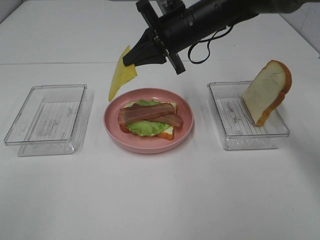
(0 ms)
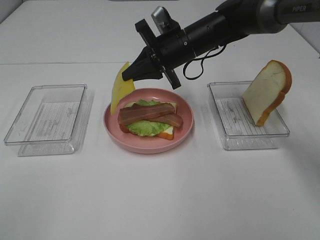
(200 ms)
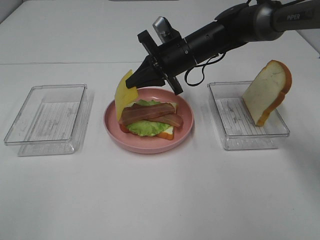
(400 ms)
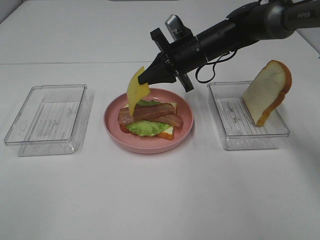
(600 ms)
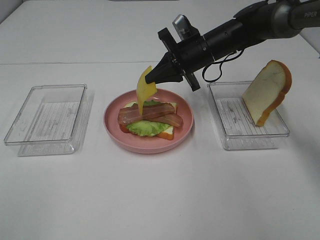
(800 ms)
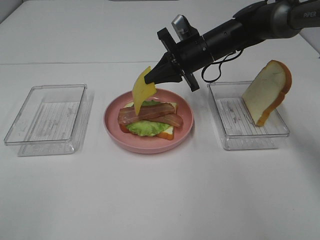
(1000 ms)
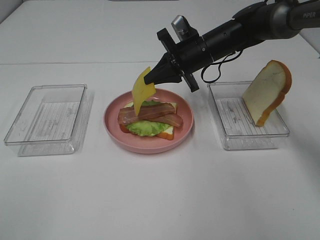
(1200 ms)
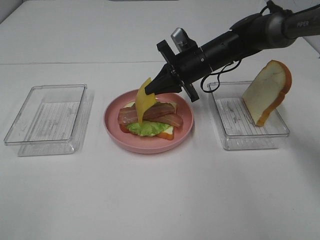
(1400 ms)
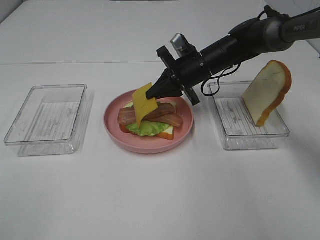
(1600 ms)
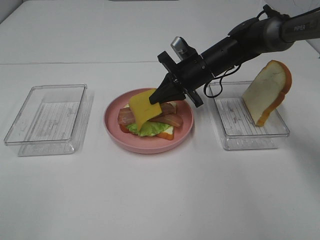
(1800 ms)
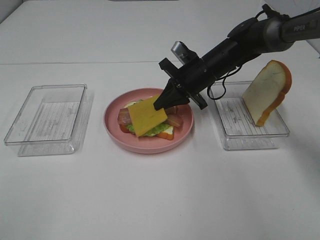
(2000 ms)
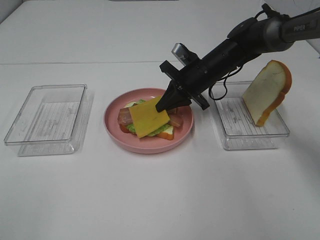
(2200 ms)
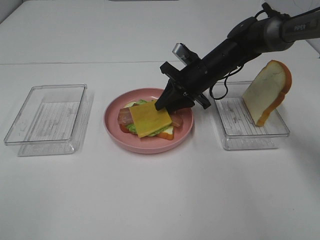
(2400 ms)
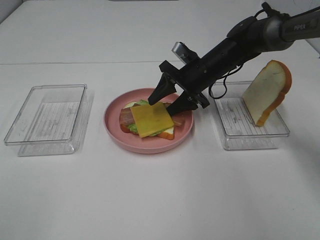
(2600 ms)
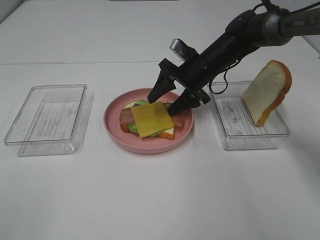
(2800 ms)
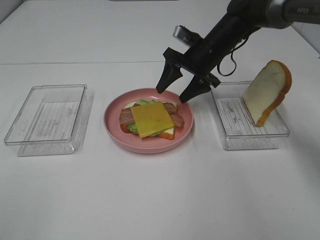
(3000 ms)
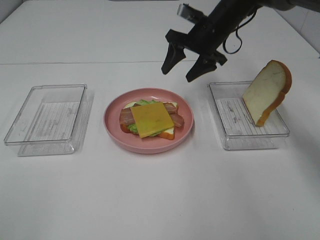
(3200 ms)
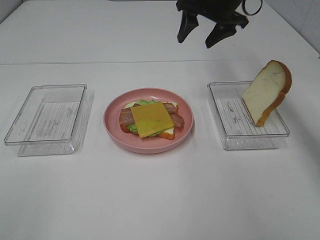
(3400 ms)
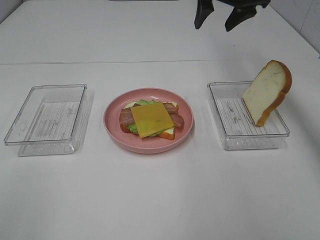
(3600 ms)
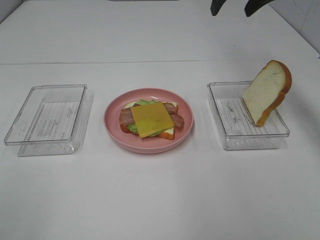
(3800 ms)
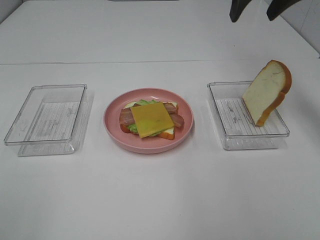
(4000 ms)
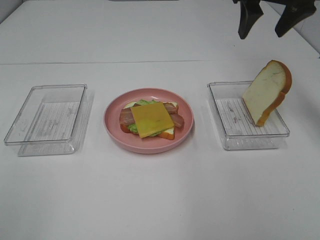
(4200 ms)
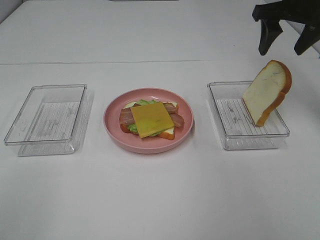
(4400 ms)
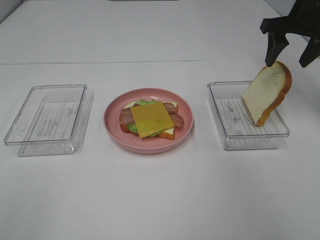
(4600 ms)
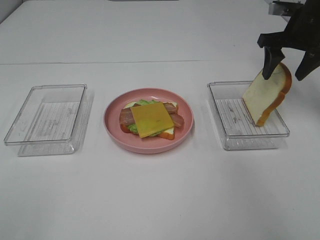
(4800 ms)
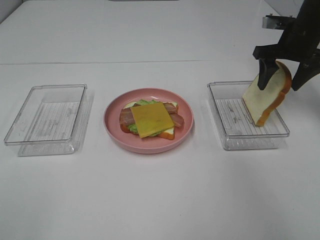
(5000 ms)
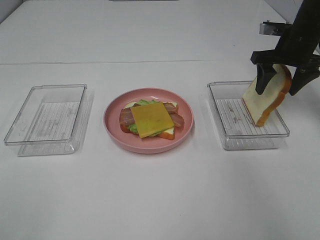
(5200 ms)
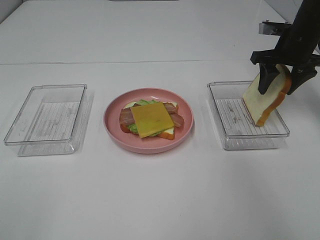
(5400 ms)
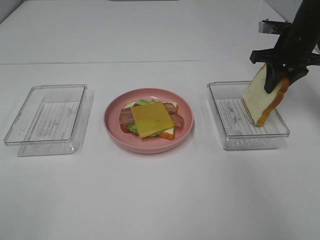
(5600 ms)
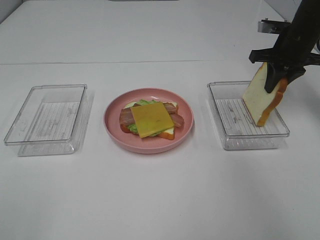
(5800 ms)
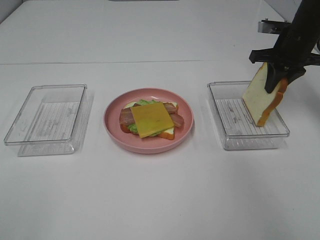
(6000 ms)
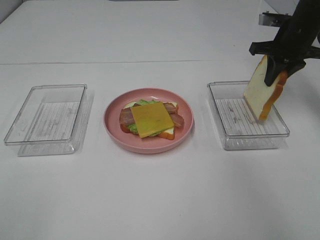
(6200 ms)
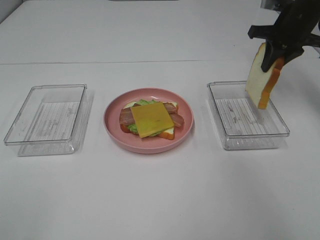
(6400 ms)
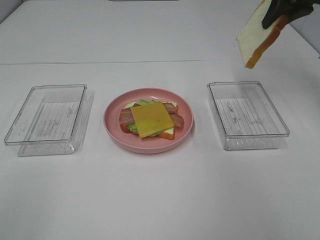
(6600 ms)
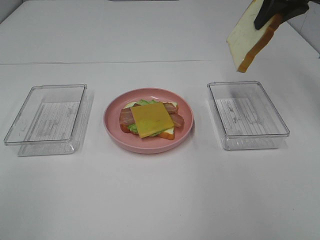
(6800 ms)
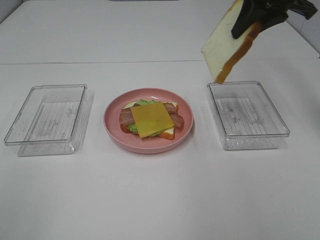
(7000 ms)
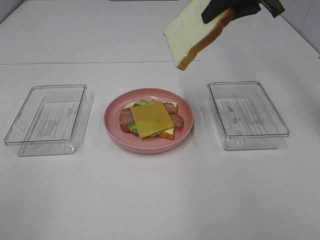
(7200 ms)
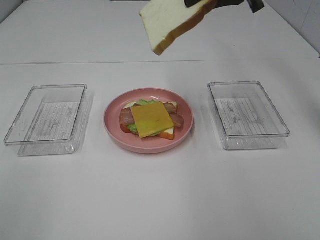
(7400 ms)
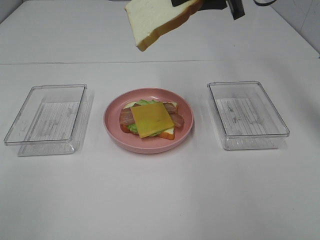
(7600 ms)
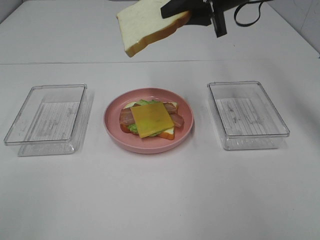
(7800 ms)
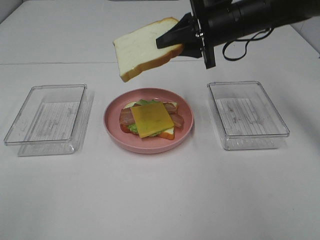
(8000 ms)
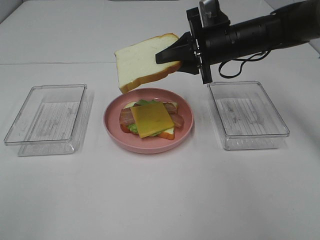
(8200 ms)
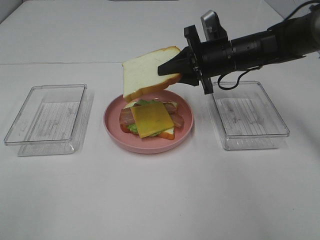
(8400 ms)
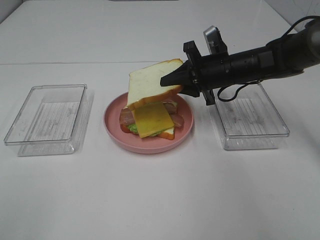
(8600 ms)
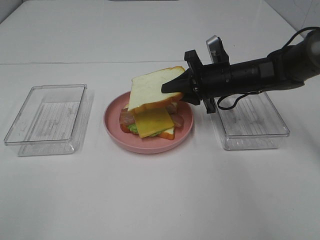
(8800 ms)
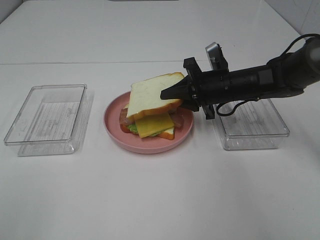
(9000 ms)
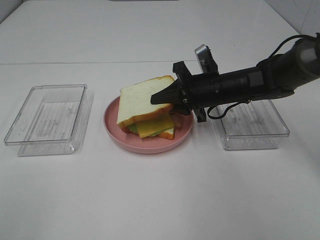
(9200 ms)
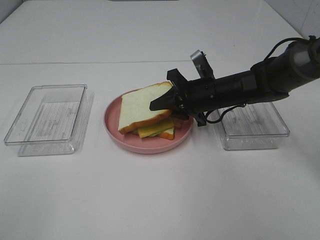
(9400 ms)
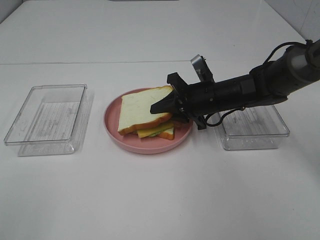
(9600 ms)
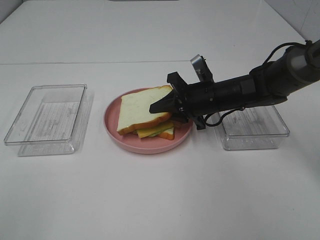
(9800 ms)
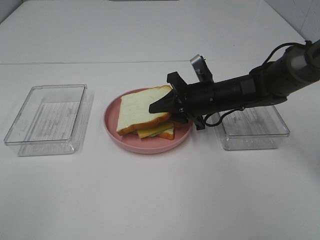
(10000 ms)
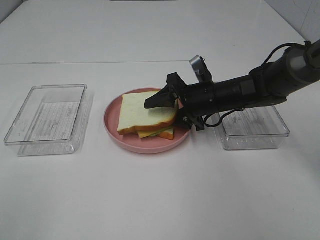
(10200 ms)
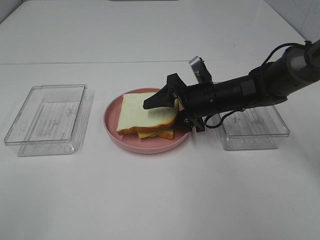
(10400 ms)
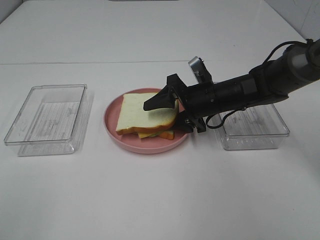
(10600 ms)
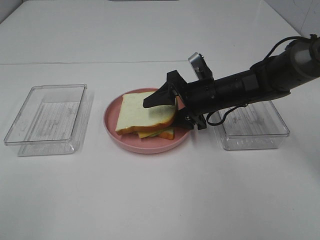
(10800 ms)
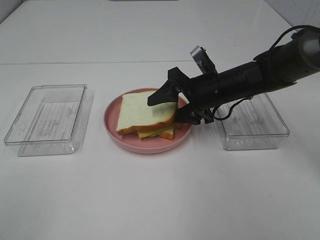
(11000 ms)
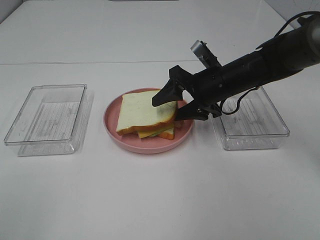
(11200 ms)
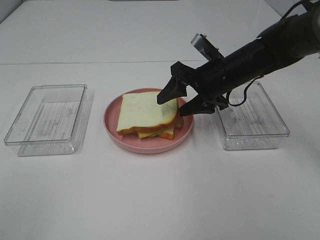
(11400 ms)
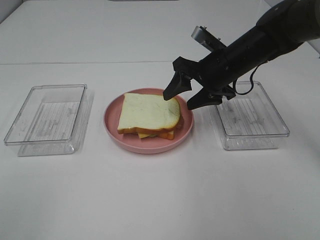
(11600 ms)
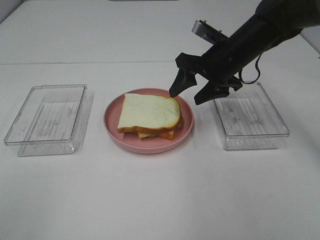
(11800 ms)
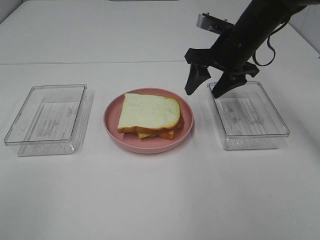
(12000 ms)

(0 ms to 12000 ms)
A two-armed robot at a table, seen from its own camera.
Task of the whole recording: Make sandwiches.
Step, 0 ms - 2800 ms: Right hand:place the cheese slice on top of the bacon.
Step, 3000 ms - 5800 ms: Right hand:grab the bread slice.
Step, 6000 ms - 11400 ms: Right hand:place the bread slice on the cheese slice.
0 ms - 1600 ms: The right gripper shifts approximately 10 cm downward.
1600 ms - 3000 ms: The right gripper opens its fingers.
3000 ms - 4400 ms: The right gripper goes roughly 20 cm to the right and upward.
4400 ms - 6000 ms: The right gripper shifts about 10 cm downward, and closes up.
6000 ms - 7600 ms: The right gripper goes roughly 20 cm to the left and upward.
7600 ms - 9000 ms: The right gripper is displaced downward by about 20 cm.
9000 ms - 10400 ms: The right gripper opens up.
10400 ms - 12000 ms: The right gripper travels upward by some 10 cm.

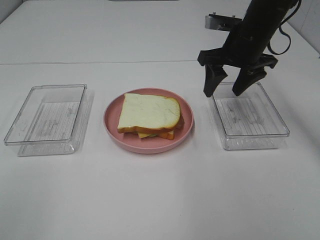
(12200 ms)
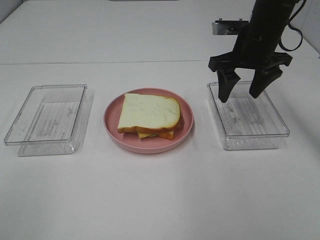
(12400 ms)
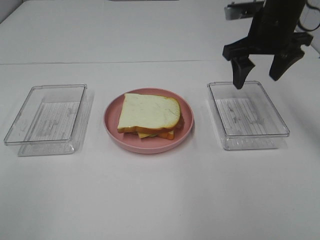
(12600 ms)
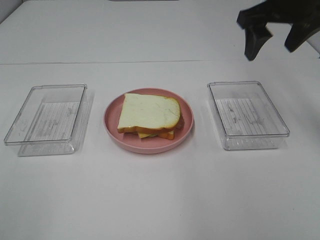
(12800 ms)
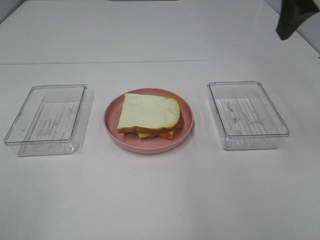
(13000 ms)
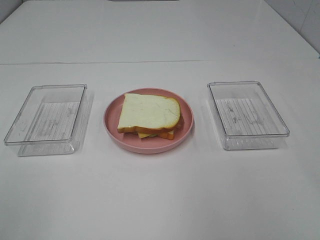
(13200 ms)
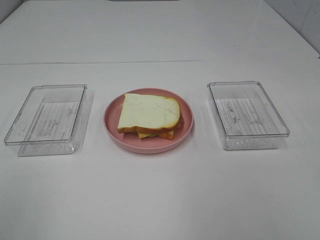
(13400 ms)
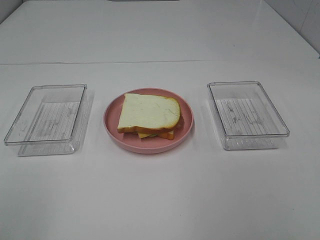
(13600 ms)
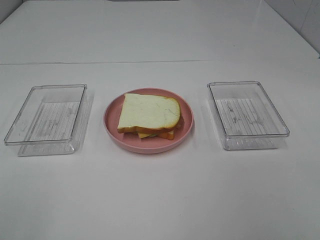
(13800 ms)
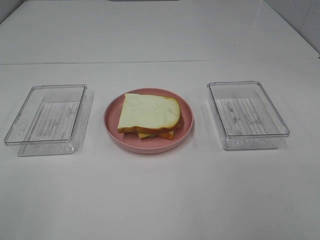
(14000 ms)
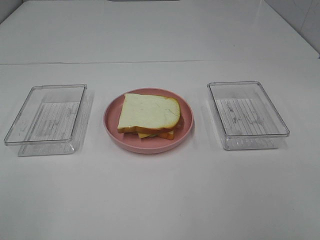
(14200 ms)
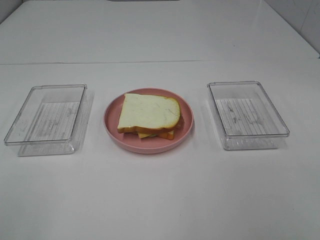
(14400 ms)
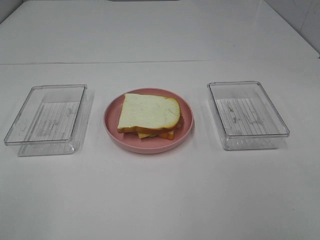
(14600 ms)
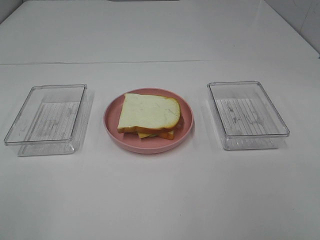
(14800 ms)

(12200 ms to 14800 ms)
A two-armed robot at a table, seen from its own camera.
Task of the whole recording: Make sandwiches.
12200 ms - 13400 ms: The right gripper shifts some 35 cm backward and upward.

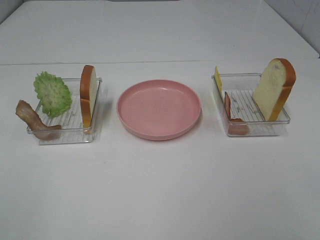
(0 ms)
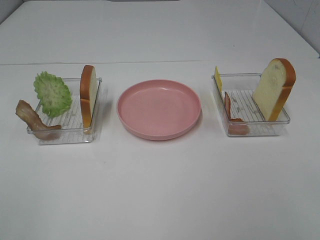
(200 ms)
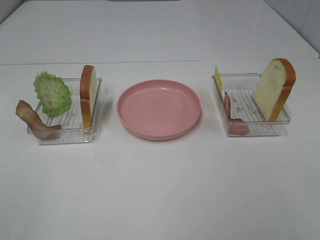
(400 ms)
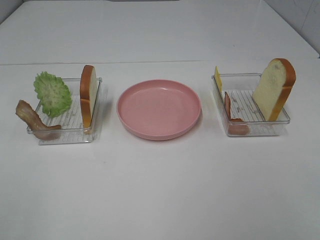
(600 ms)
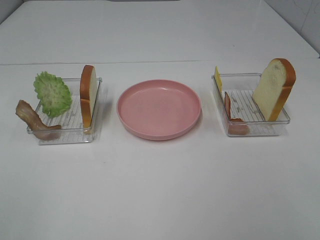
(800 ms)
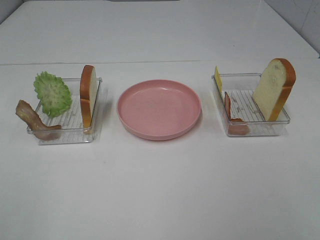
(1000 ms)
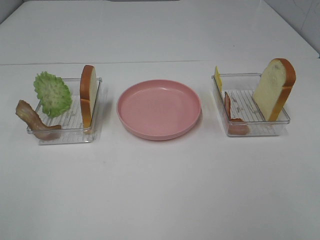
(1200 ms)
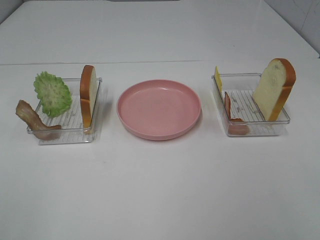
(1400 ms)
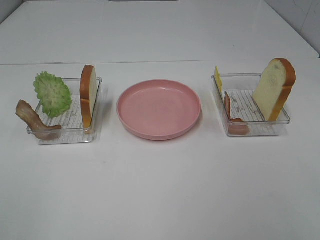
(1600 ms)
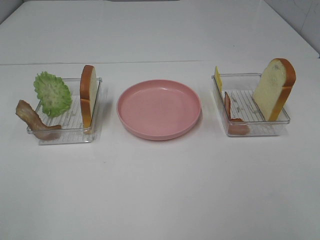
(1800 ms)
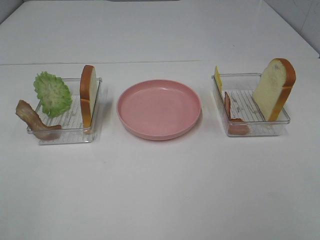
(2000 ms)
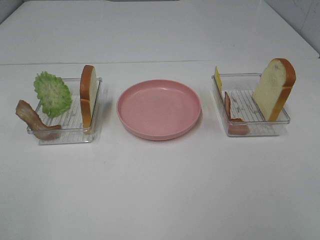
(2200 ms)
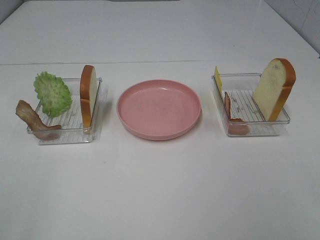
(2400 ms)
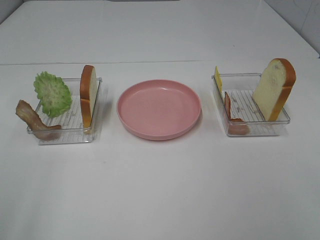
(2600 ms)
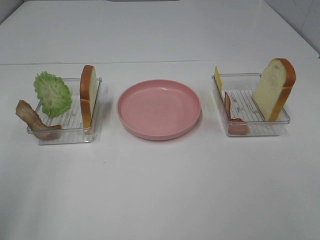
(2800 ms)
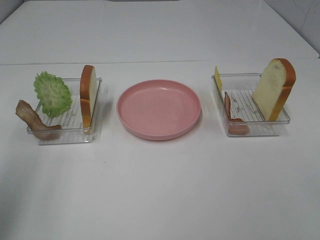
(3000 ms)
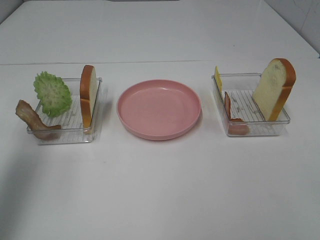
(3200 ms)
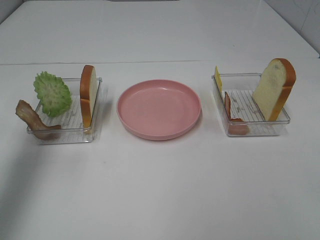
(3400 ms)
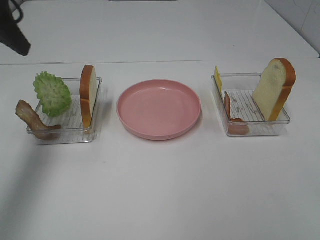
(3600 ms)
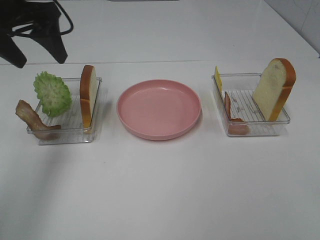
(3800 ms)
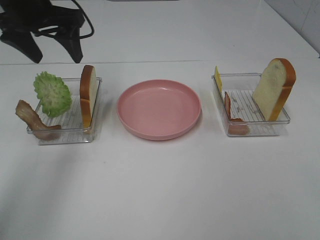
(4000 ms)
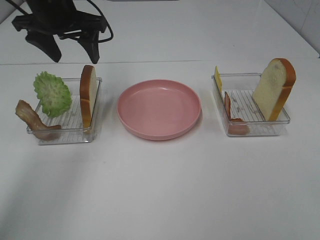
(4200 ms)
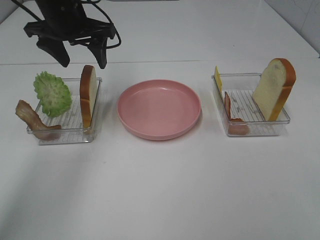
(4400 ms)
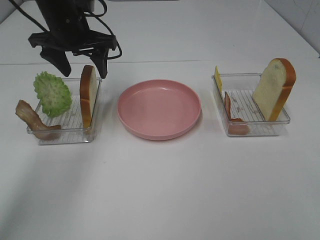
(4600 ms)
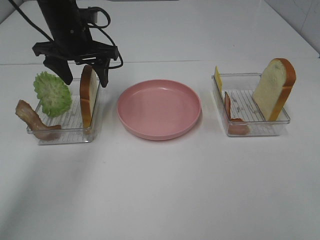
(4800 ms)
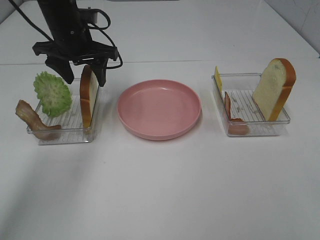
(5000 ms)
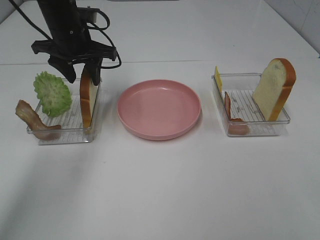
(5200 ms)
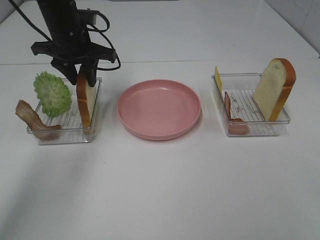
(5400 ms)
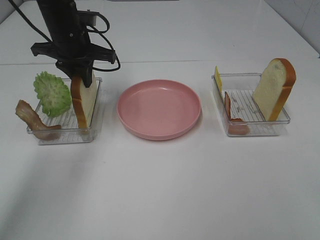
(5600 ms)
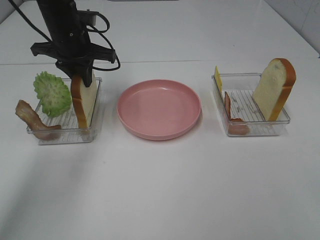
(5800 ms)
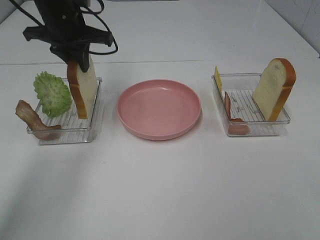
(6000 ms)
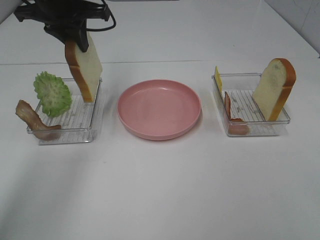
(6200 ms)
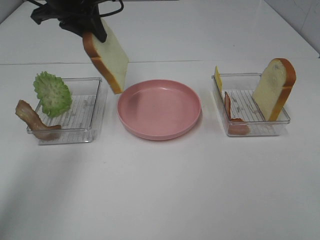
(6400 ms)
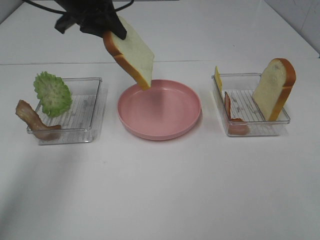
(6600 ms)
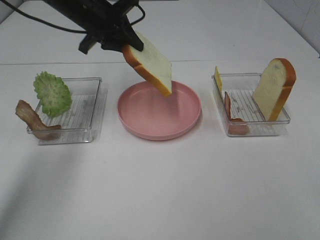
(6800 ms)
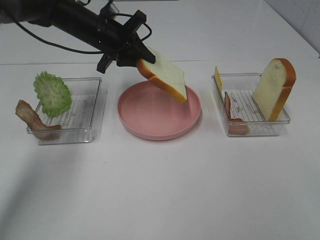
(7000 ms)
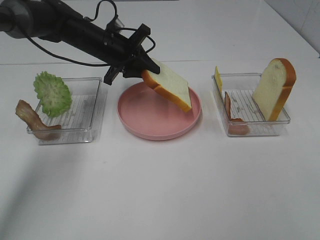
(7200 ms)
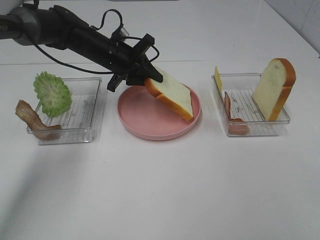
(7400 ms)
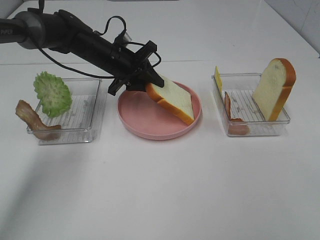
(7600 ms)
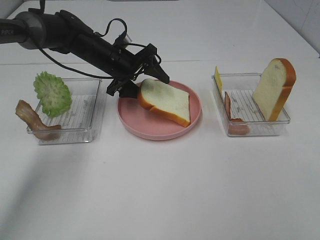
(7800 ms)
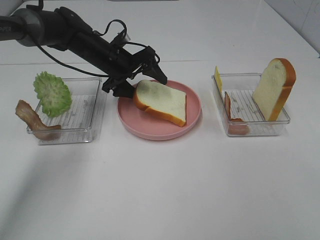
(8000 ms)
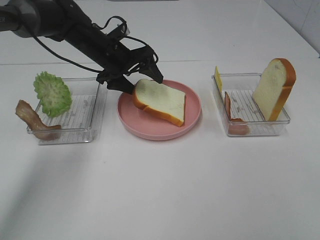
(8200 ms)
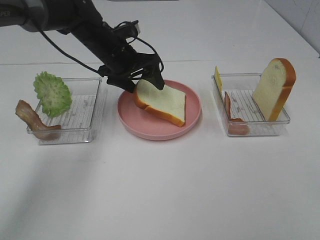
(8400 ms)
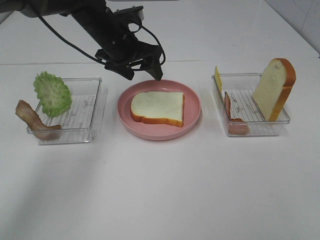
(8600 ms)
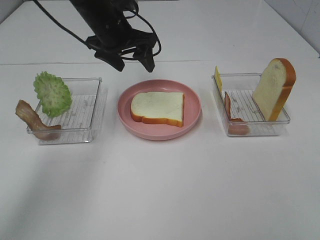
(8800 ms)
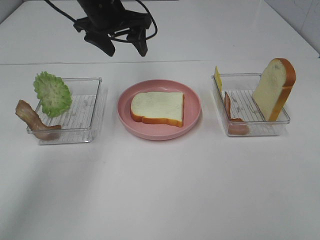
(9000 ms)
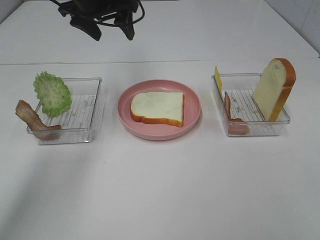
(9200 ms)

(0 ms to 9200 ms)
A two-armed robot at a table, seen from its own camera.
Task of the whole recording: Make sandwiches.
Step, 0 ms - 5600 ms: Left hand:grab the bread slice.
Step, 5800 ms - 8800 ms: Left hand:place the bread slice on the plate.
0 ms - 1600 ms: Both grippers stay about where they are.
1600 ms - 3000 ms: The left gripper moves forward, roughly 15 cm.
3000 ms - 4600 ms: The left gripper moves forward and to the right, about 35 cm.
4600 ms - 6200 ms: The left gripper travels upward by approximately 5 cm, and closes.
6200 ms - 7600 ms: The left gripper travels downward by approximately 15 cm.
7600 ms - 9200 ms: The left gripper shifts some 15 cm upward, and opens its fingers.
